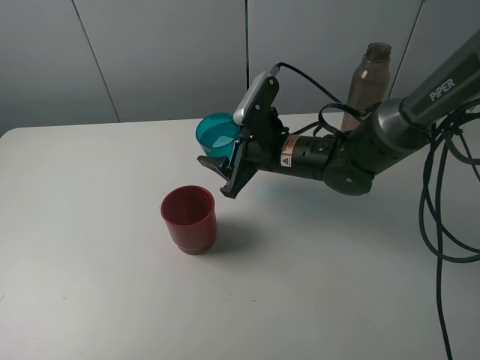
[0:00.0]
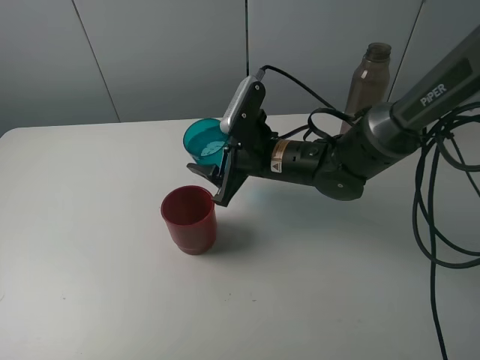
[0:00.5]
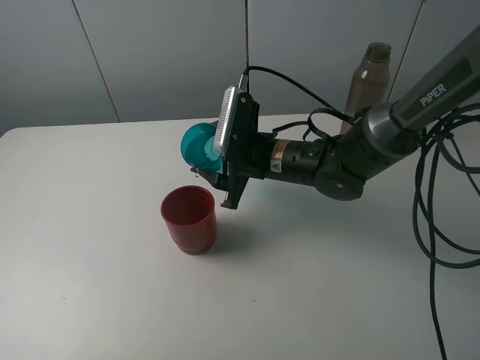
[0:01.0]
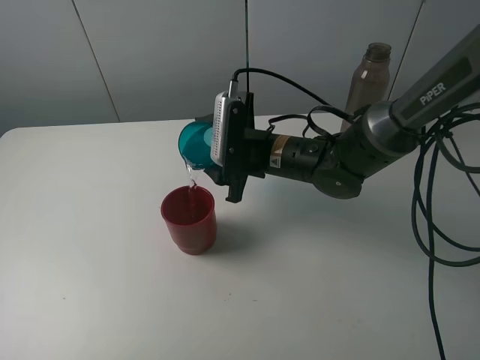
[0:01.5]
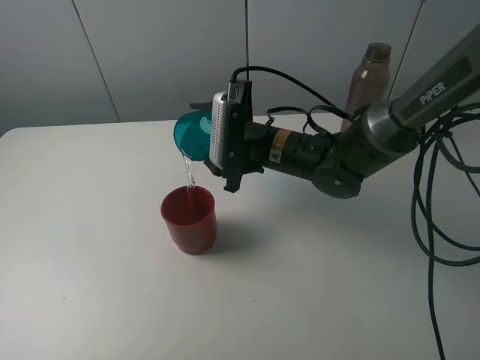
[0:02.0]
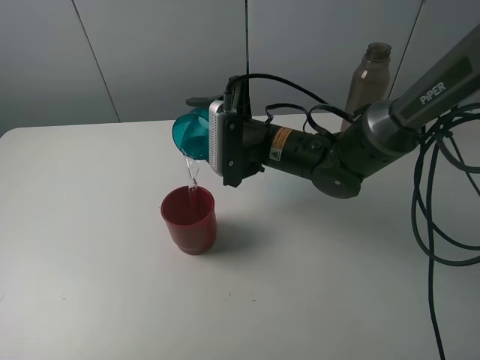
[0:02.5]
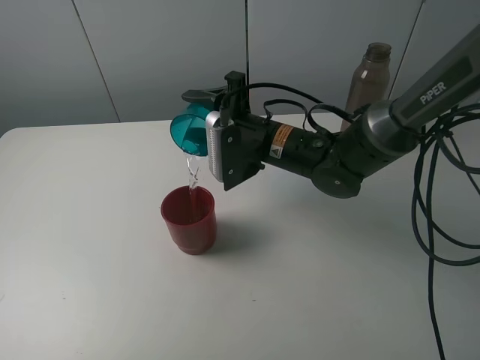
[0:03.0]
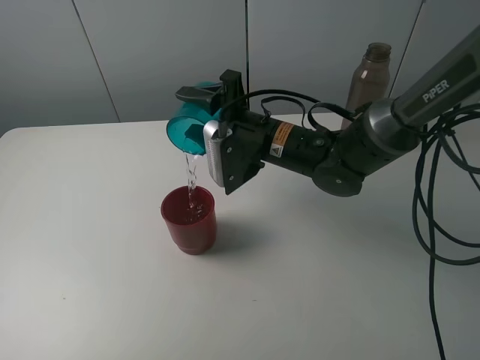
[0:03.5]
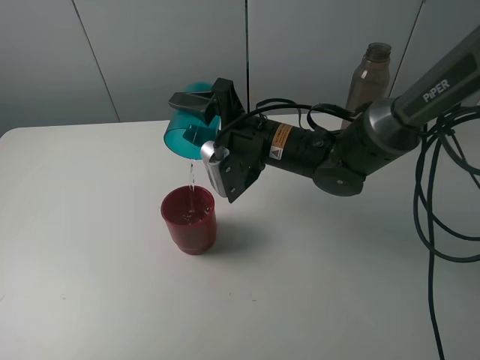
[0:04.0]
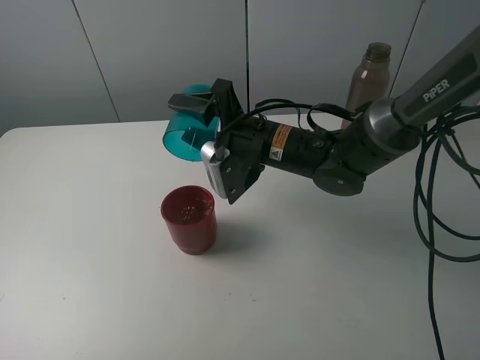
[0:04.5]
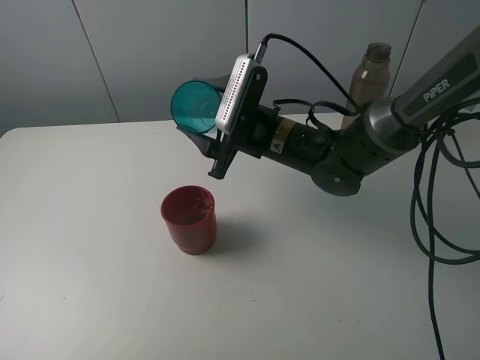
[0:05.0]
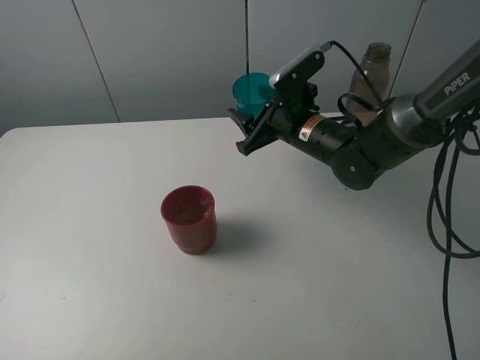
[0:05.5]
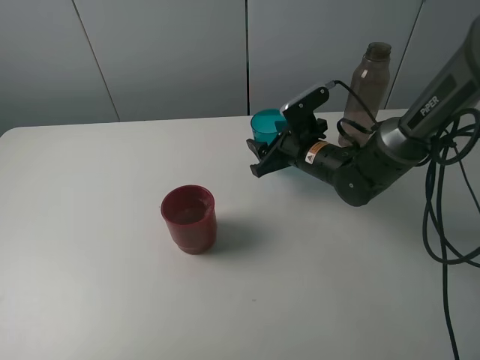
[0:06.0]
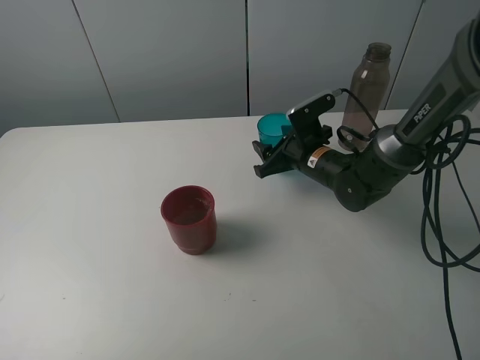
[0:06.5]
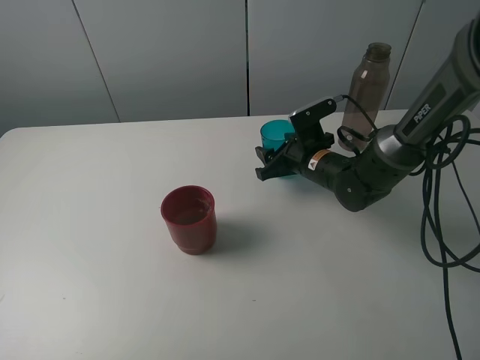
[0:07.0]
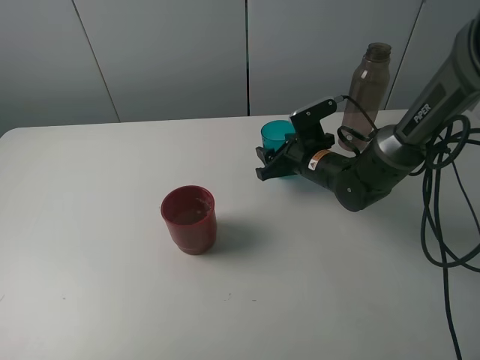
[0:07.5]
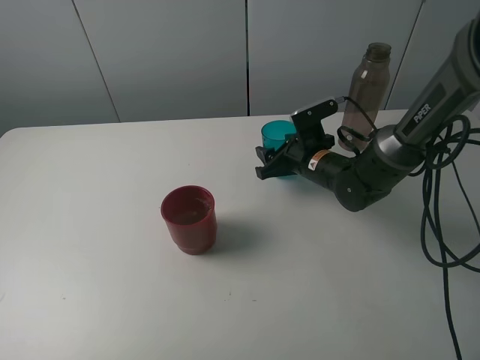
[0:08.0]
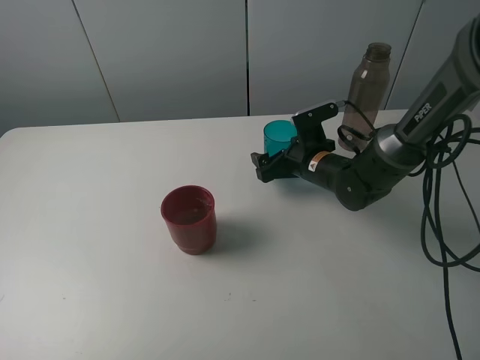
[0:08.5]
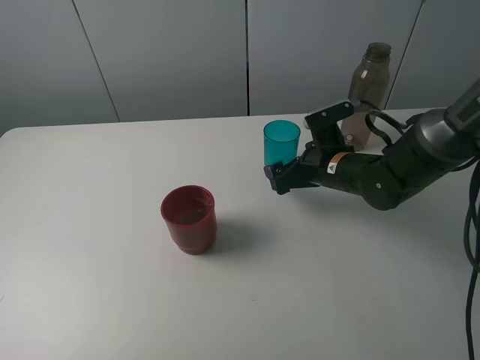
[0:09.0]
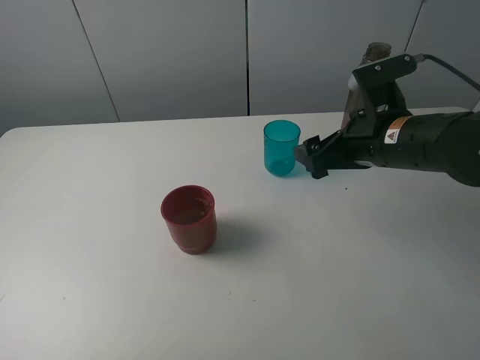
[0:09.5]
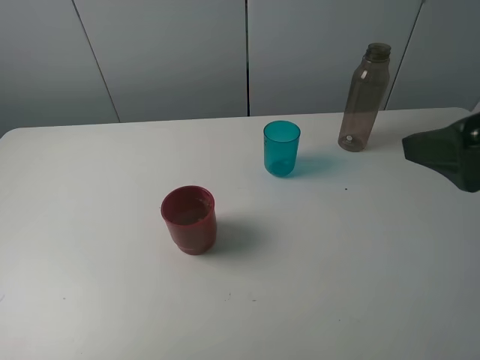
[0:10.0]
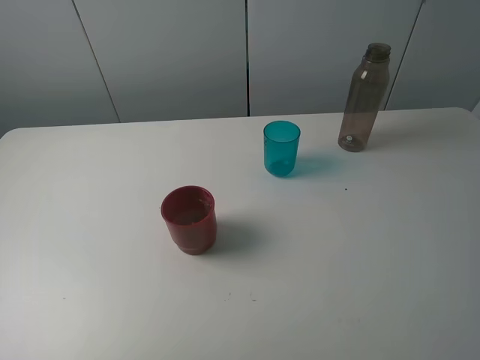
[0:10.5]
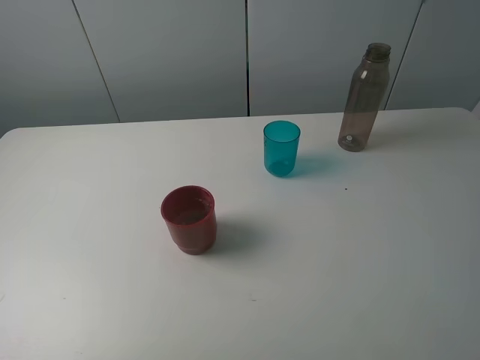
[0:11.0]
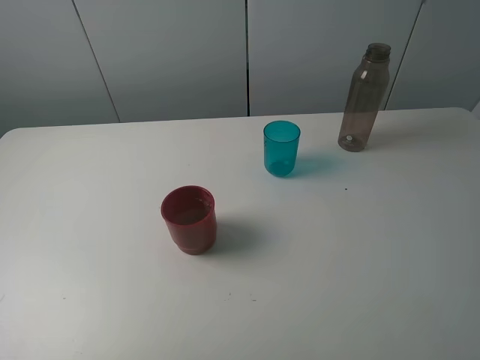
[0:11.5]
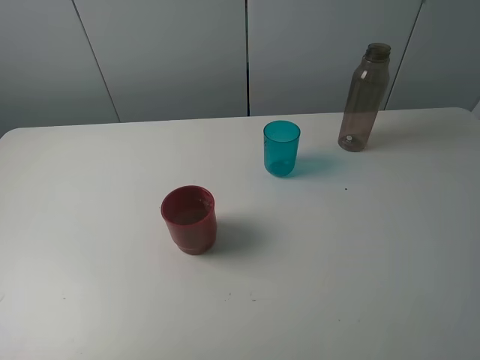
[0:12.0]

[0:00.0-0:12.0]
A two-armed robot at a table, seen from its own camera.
Task of the whole recording: pick up the bottle and pour water into the cup, then pick up the cup containing water and pour it into another cup.
Step, 0.0 to 4.0 s: Pour water from blue cup to red cup with the right gripper.
Step, 4.5 to 8.5 s: Place the blue cup with the right gripper.
4.0 to 6.0 s: The right gripper moves to the right and downward, roughly 10 cm.
6.0 to 8.0 s: There are only small adjustments of the grippers.
8.0 to 10.0 s: The right gripper travels upward, backward and to the right by about 35 cm, and opens its fingers.
10.0 to 12.0 s: The right gripper goes about 15 cm backward and to the right.

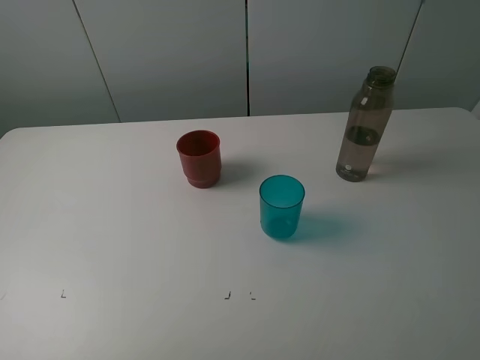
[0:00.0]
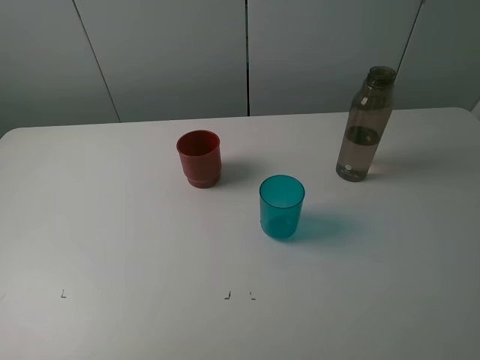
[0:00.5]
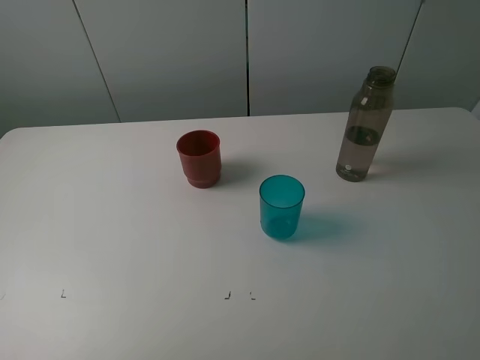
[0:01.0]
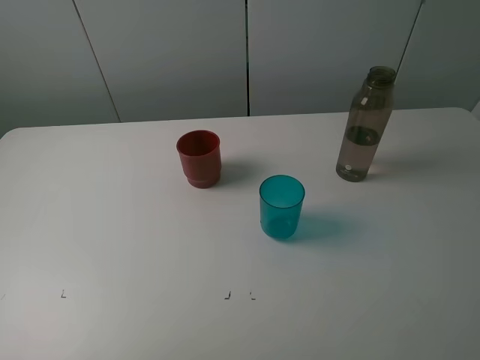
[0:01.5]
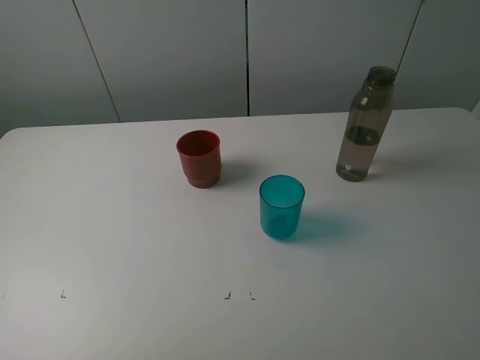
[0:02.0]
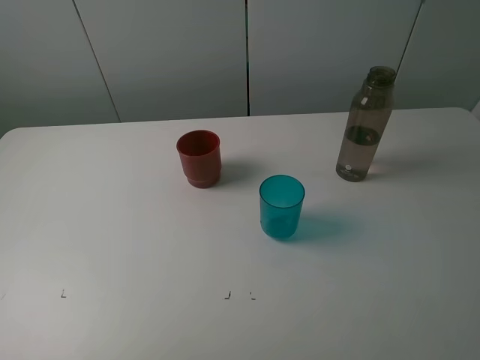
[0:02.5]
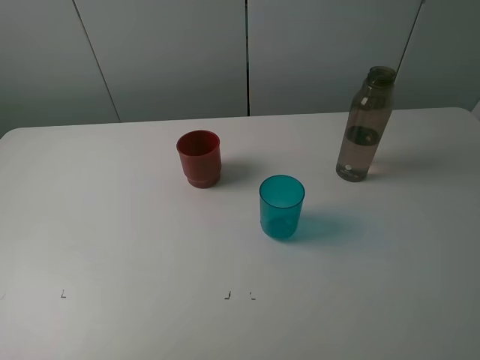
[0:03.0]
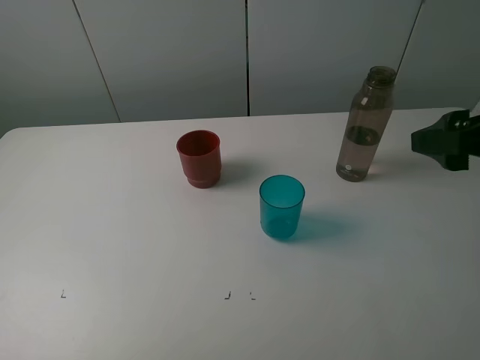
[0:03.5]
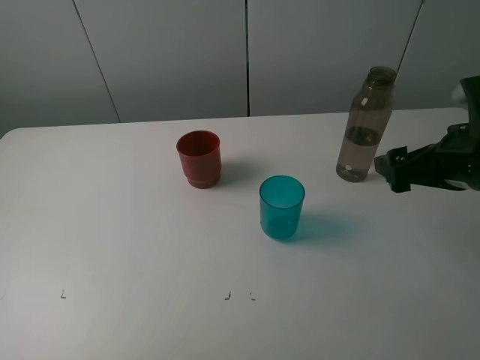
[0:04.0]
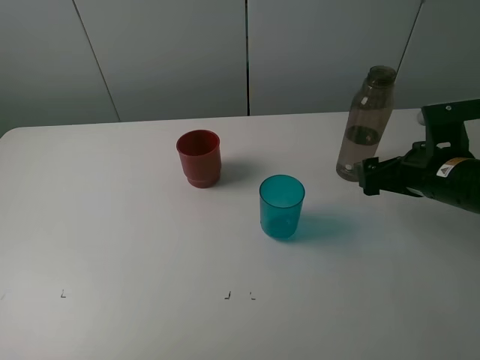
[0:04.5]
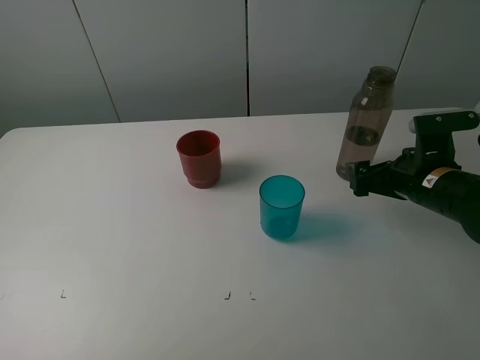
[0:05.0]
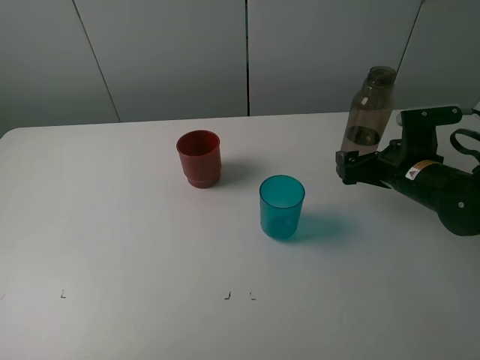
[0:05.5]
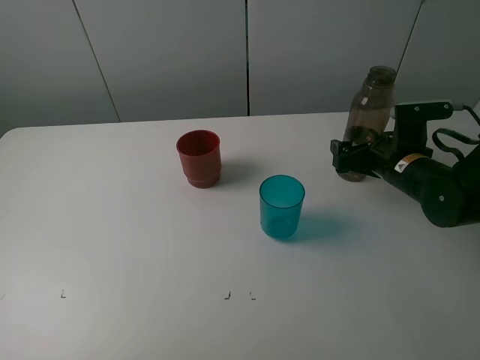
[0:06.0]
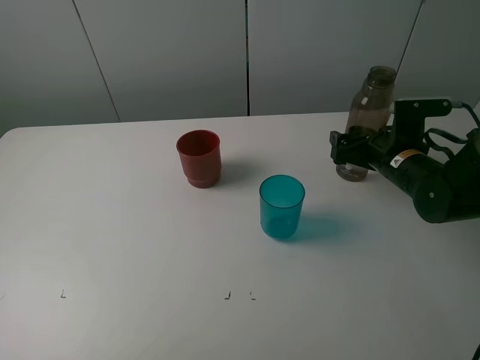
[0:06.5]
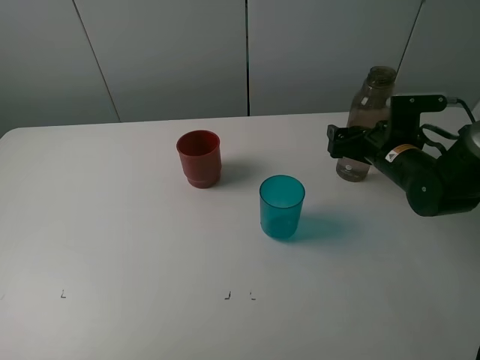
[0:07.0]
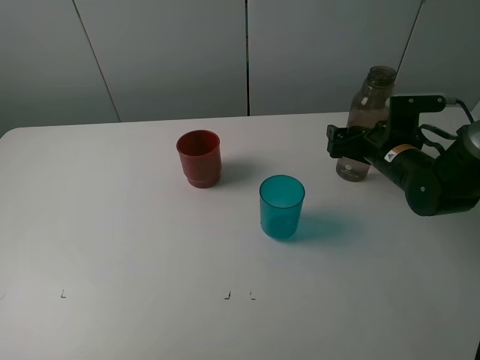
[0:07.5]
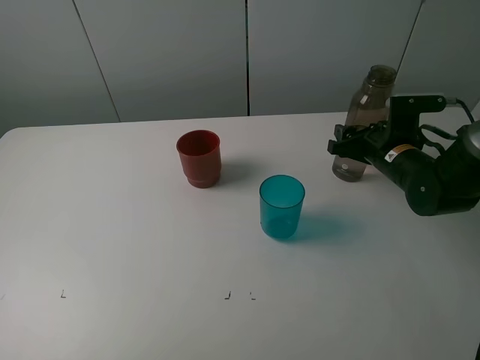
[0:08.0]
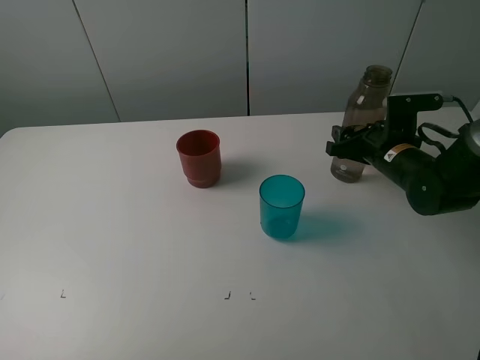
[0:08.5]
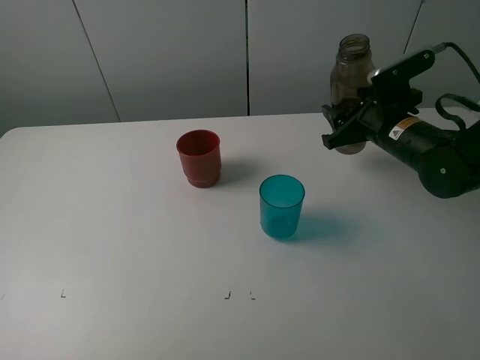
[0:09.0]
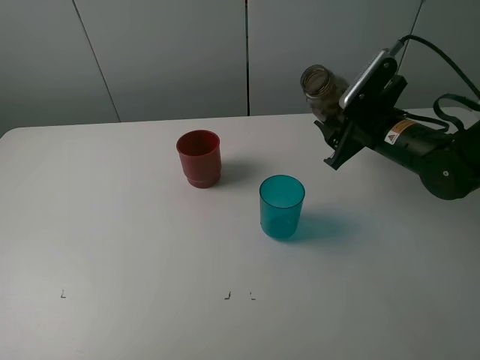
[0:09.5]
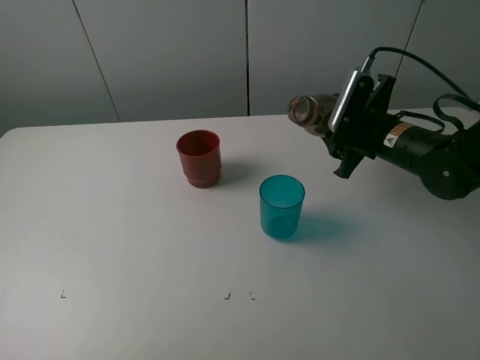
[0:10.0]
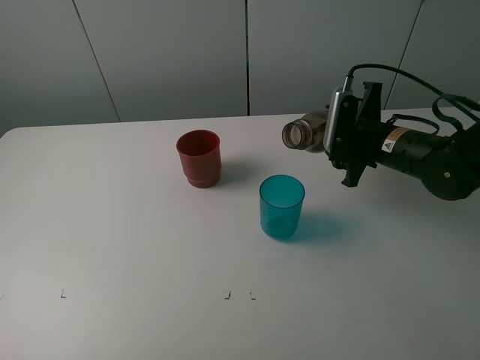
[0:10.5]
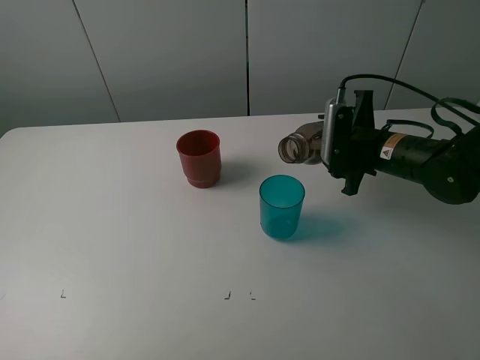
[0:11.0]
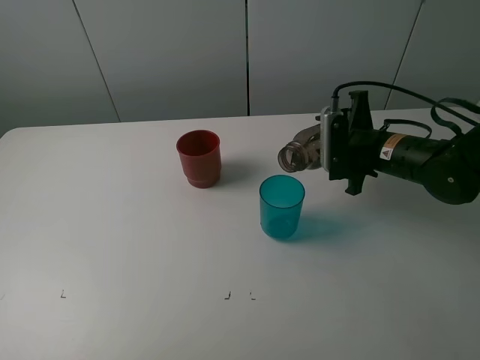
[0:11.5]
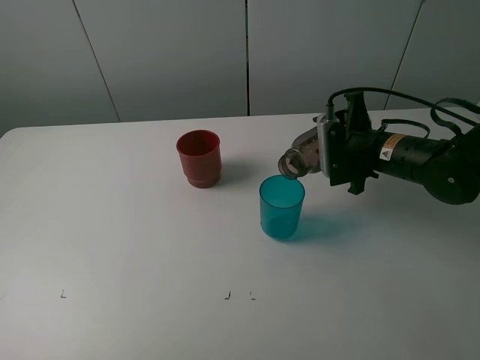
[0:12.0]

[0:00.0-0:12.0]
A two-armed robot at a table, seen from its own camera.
Task of the whole recording: pick up the bottle and pour water into the cup, then pick up the cup containing water and pour it into another cup.
Step, 0.0 to 8.0 s: Grasp the brown bottle with the right gripper.
0.0 to 2.0 s: The two grippers keep their place.
2.0 to 4.0 s: The right gripper is displaced forward and downward by roughly 25 cm.
4.0 to 6.0 s: The right gripper goes roughly 15 cm downward and forward.
6.0 to 8.0 s: The right gripper closes.

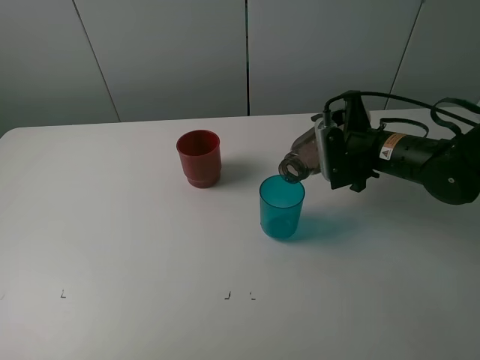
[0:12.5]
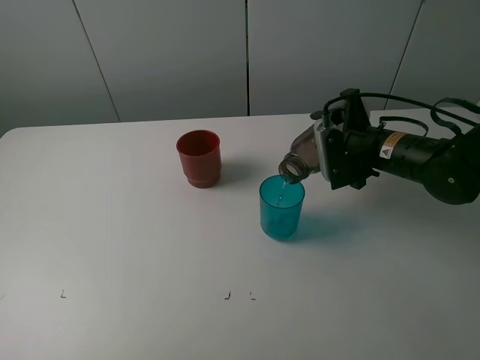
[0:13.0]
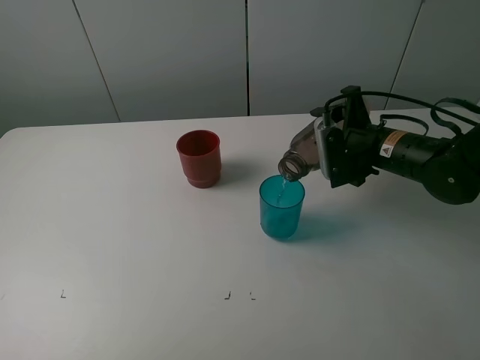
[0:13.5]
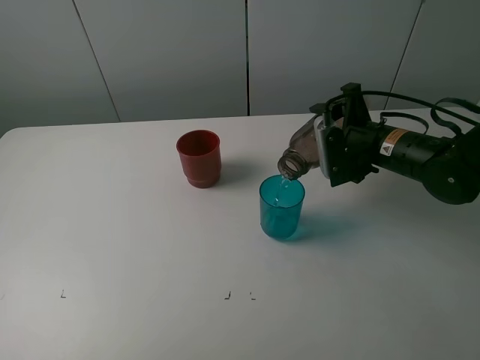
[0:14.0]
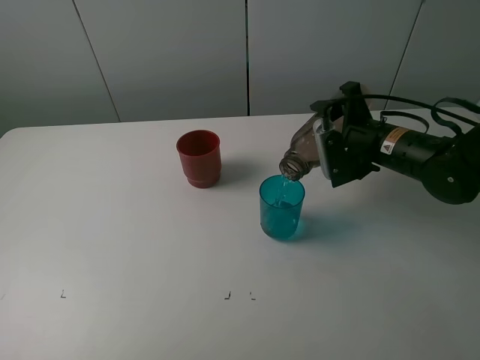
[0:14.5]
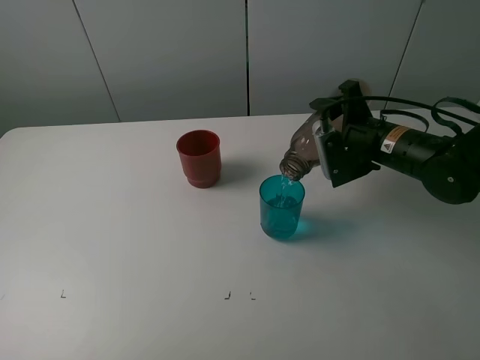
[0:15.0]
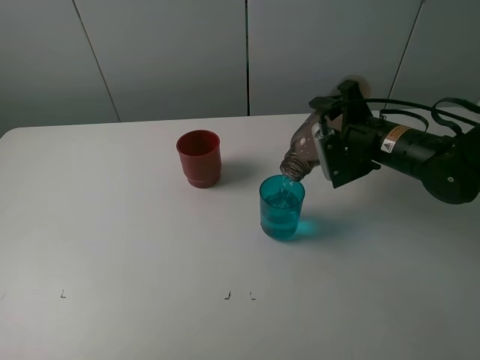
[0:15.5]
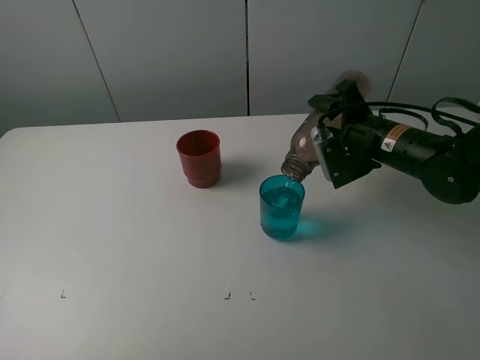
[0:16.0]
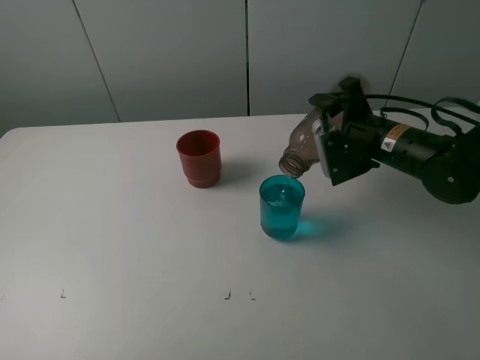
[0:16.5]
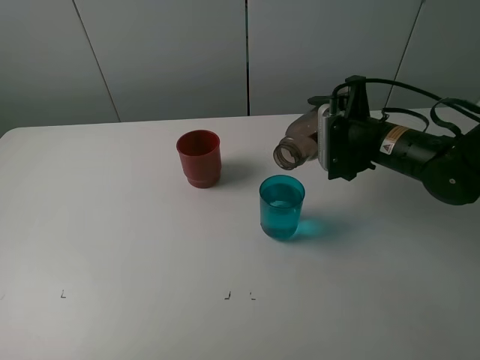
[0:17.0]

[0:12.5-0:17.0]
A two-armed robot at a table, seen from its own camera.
Task of the whole recording: pick up the bottle and pour water into the cup, then pick up the cup containing water and pour it into another cup.
Step, 12.5 to 16.5 s: Pour water from brown bottle to blue cup with the right gripper.
12.5 to 17.0 s: The grippers make only small movements.
